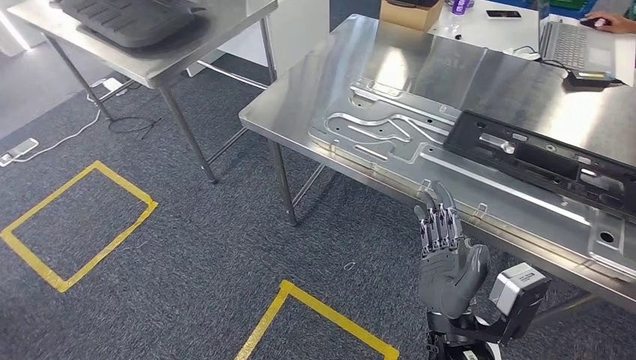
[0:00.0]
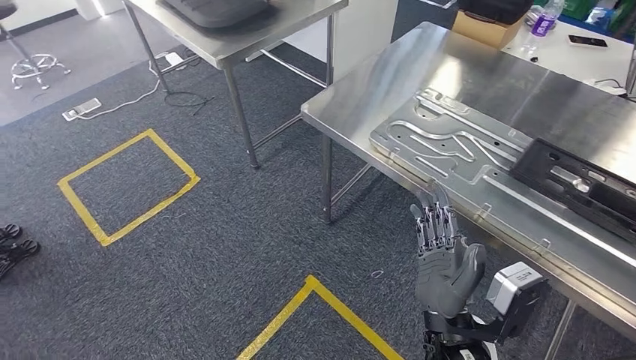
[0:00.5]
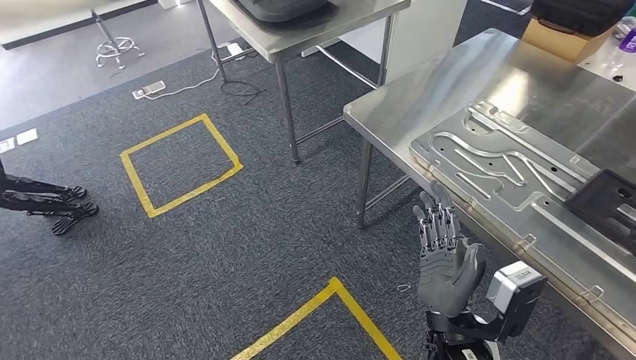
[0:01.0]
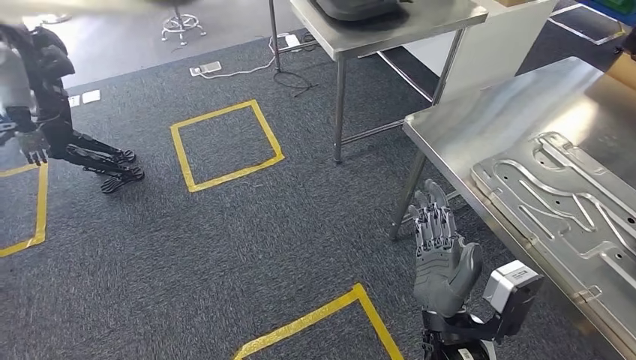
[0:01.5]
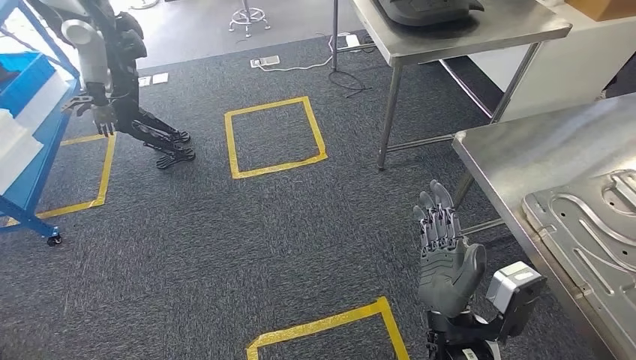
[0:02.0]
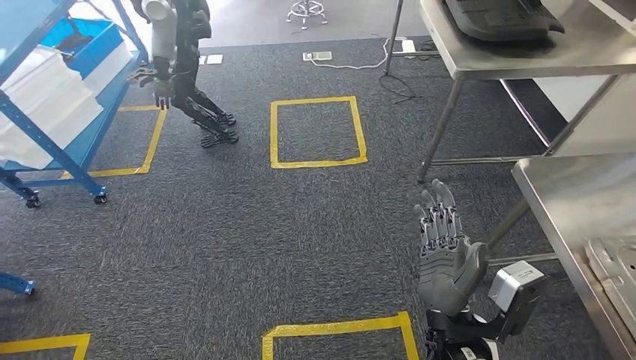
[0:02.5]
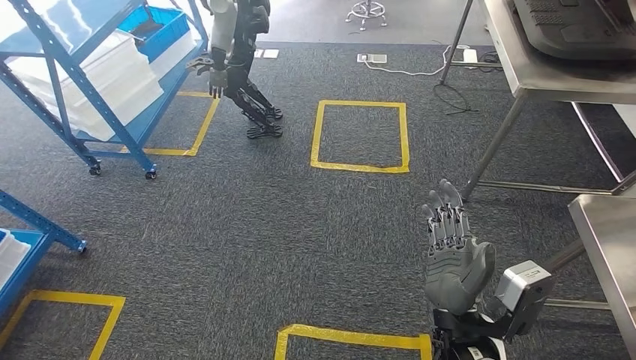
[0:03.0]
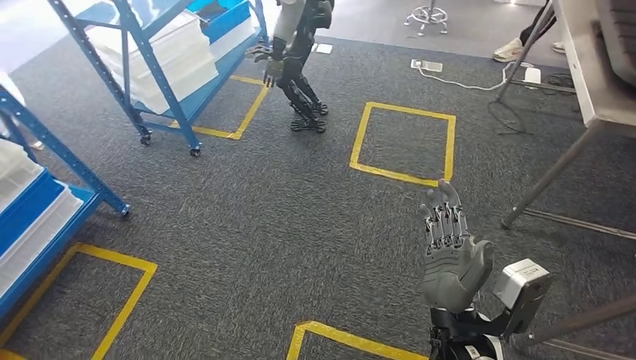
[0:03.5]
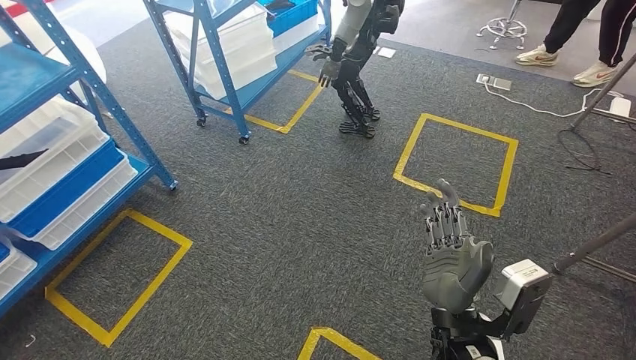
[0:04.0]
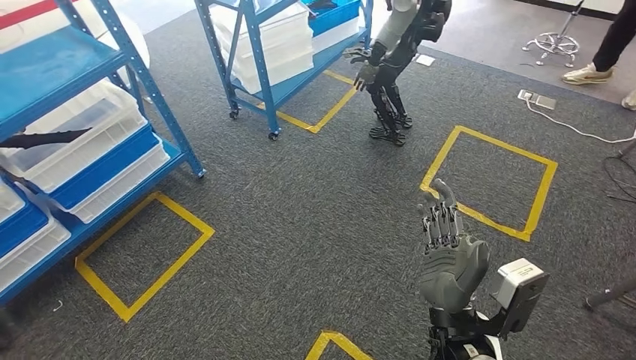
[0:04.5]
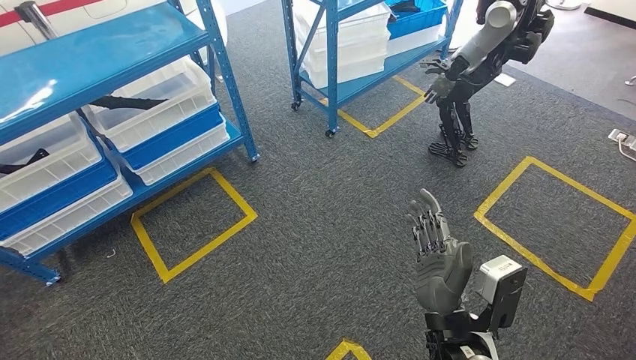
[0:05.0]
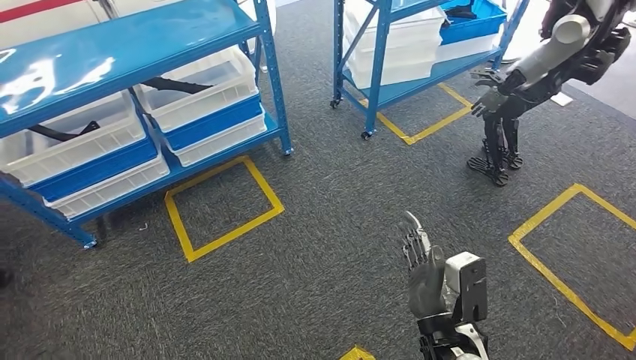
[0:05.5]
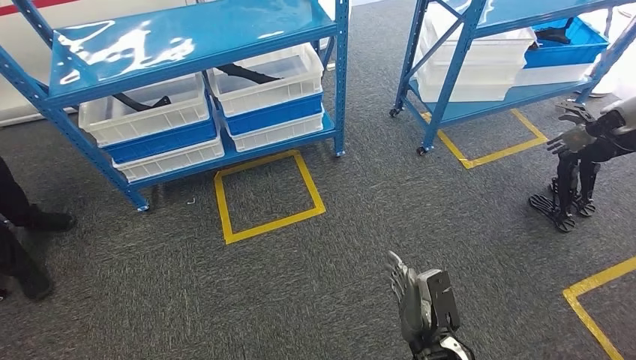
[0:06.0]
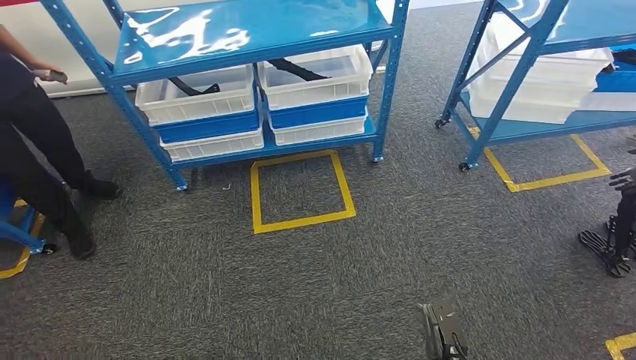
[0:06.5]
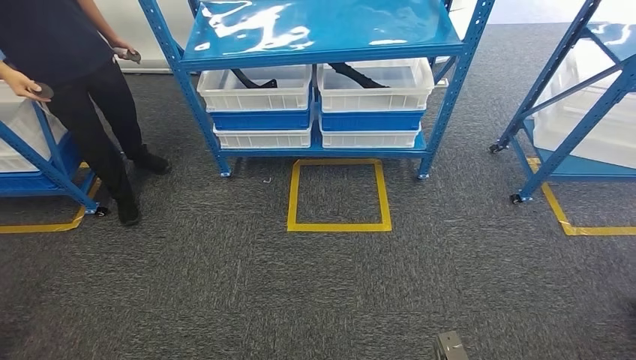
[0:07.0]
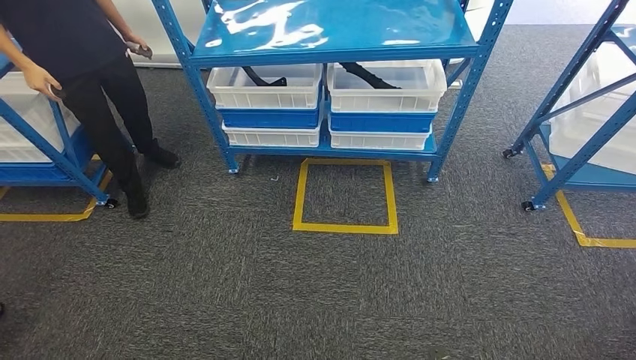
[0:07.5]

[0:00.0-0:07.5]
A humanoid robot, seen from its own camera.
Step, 0:00.0 to 0:07.5: Move to the initial position of the shelf.

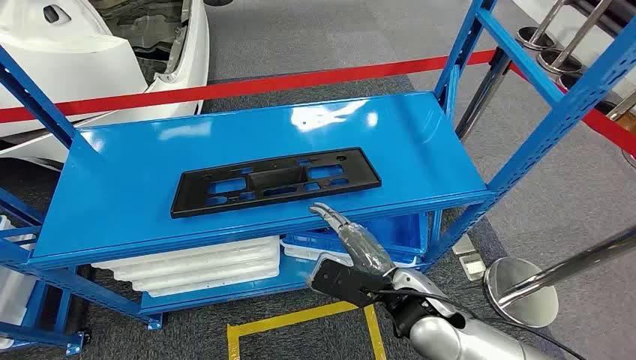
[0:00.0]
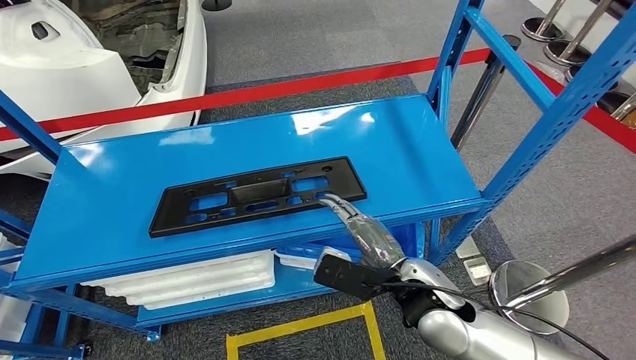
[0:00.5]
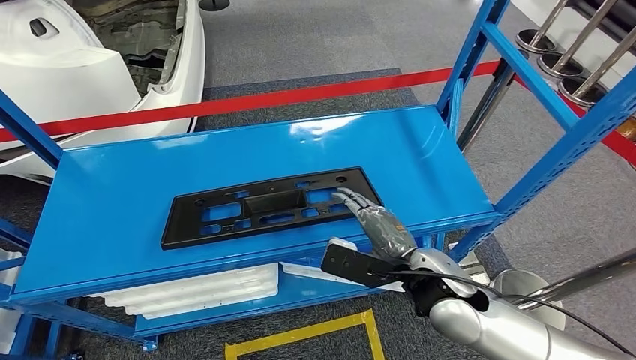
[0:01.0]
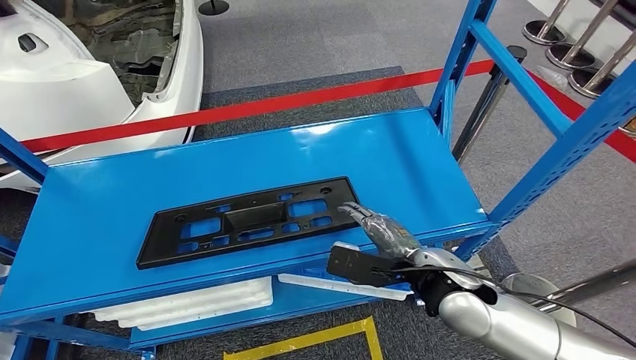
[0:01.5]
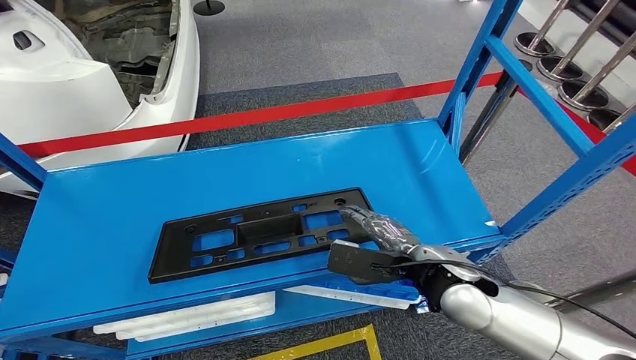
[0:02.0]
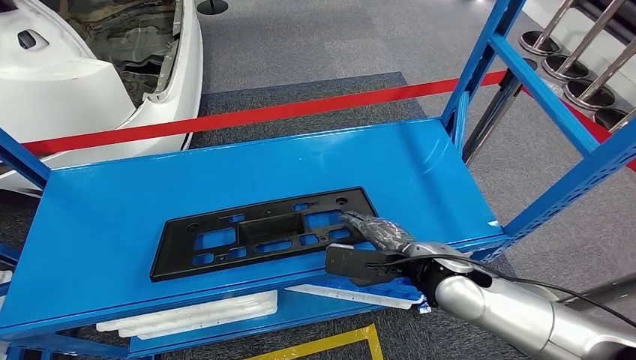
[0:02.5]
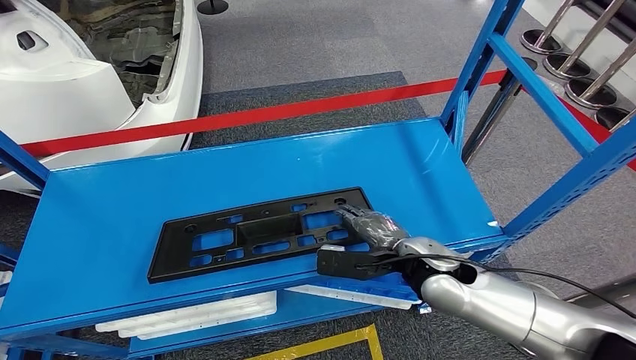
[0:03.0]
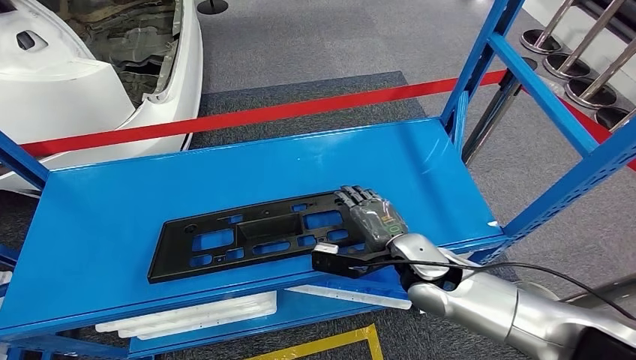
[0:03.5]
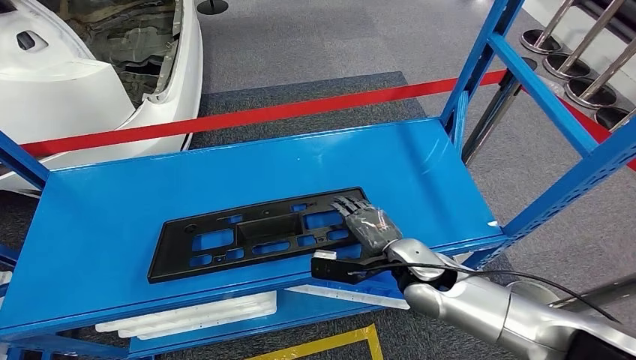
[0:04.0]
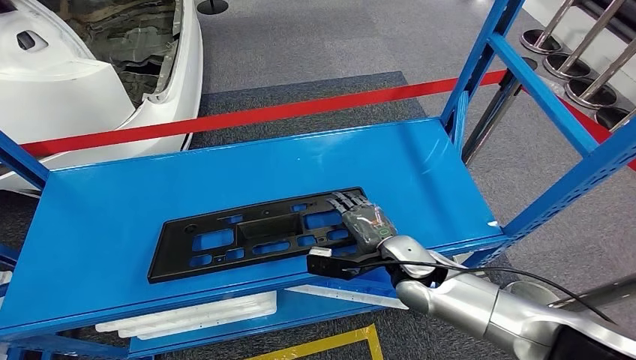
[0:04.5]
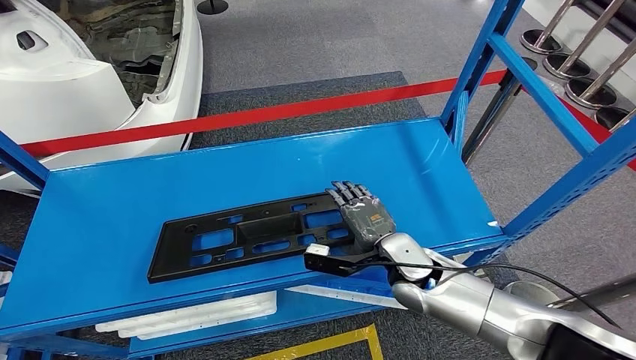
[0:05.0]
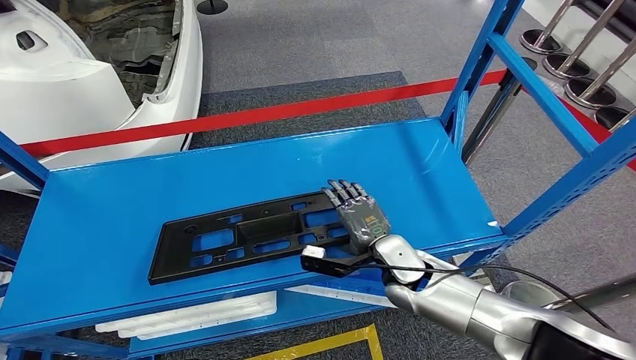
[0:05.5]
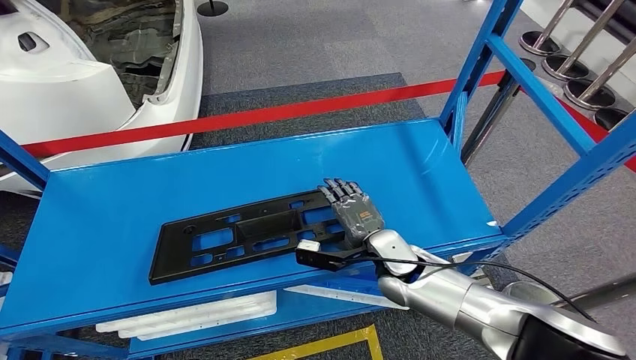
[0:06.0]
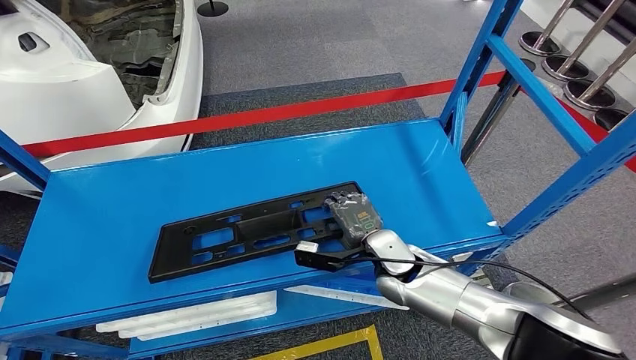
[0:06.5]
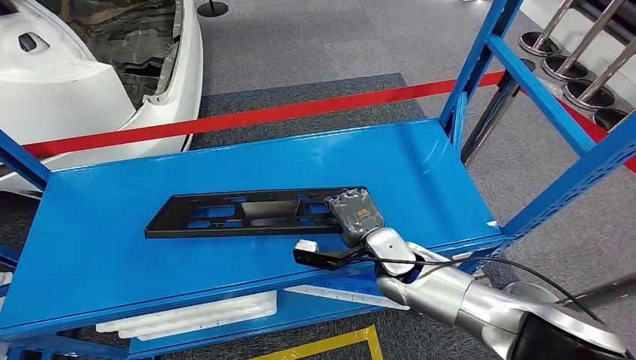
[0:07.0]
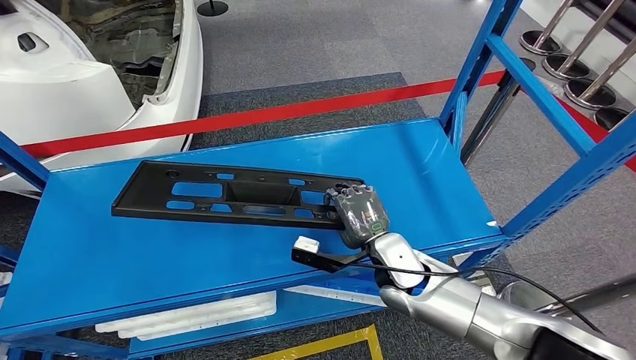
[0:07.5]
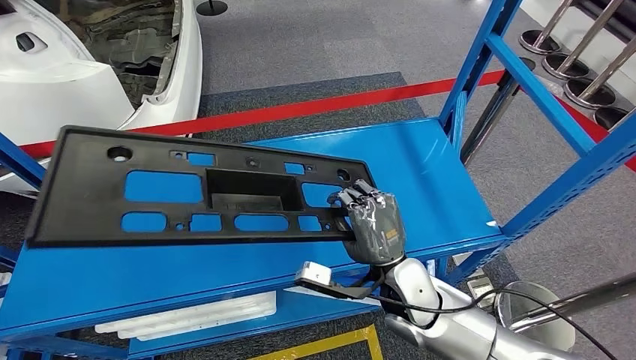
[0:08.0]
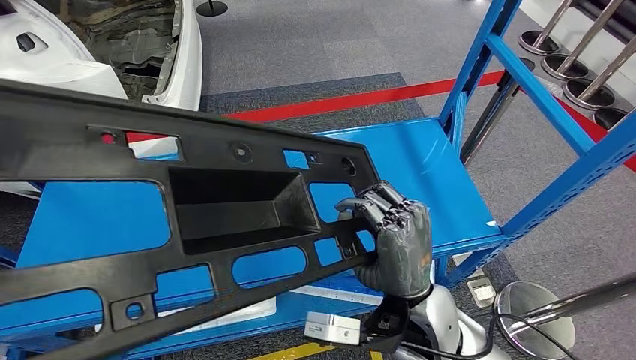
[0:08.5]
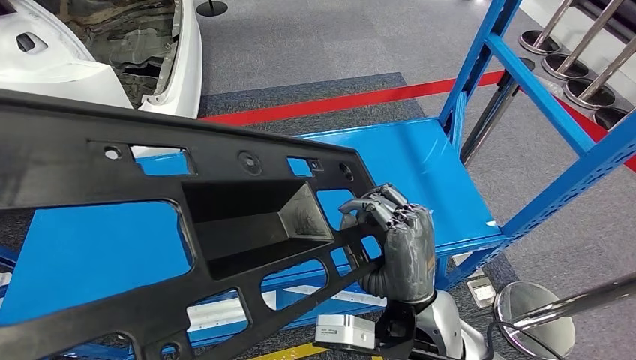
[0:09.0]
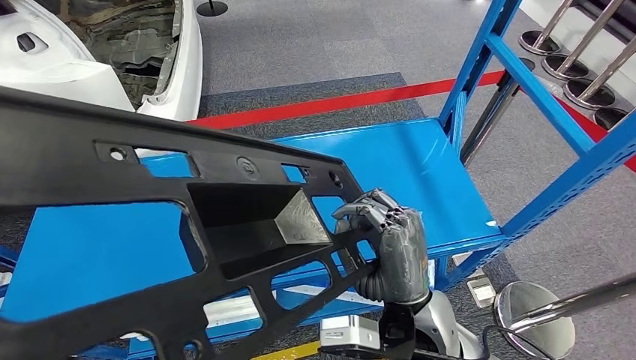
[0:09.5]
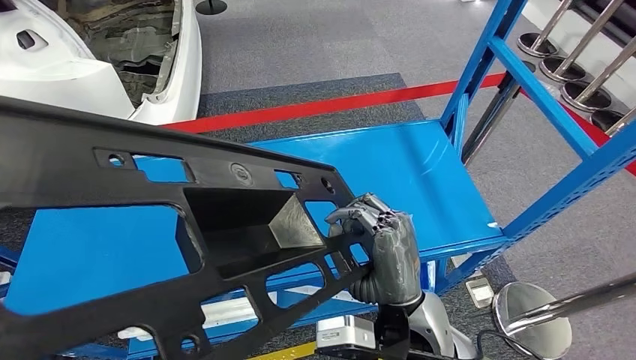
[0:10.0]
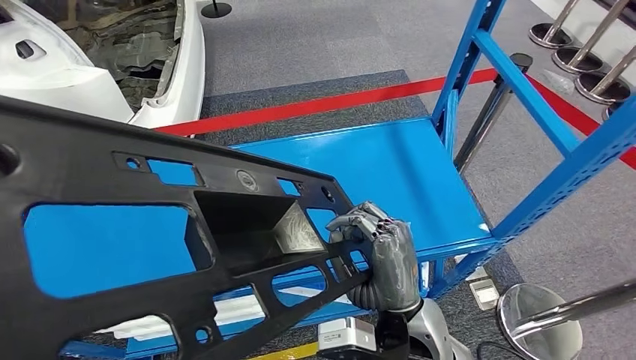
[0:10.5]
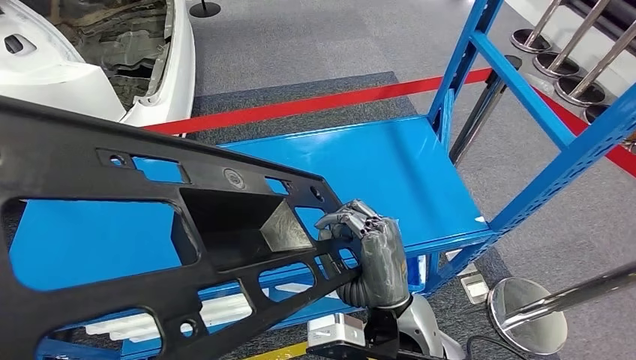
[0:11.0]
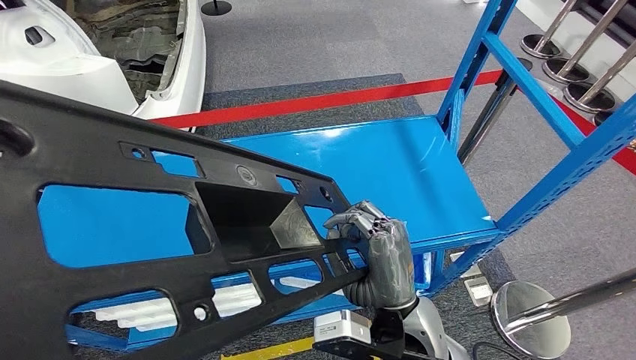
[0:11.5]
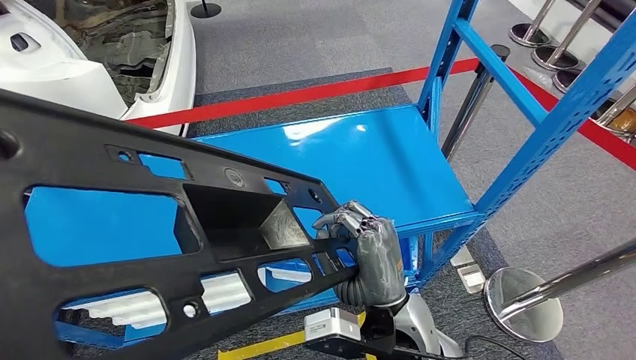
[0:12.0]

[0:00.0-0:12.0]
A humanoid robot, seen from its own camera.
0:02.0 to 0:04.0: The right hand is displaced downward by some 5 cm.
0:04.0 to 0:06.0: The right hand moves roughly 5 cm.

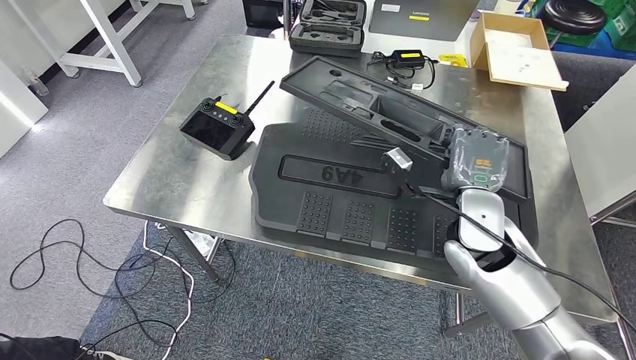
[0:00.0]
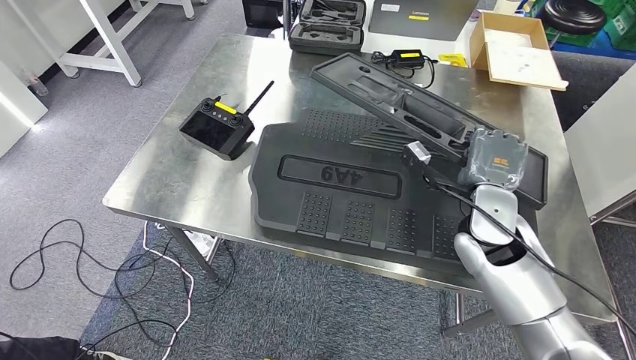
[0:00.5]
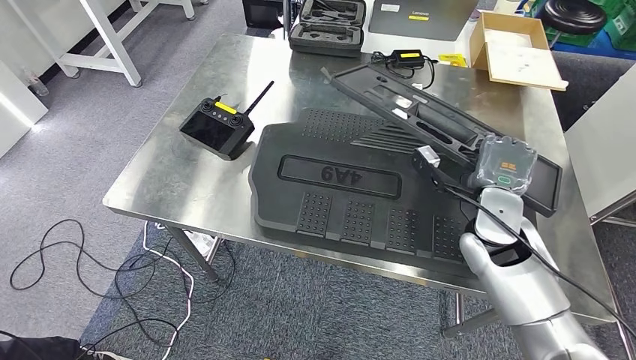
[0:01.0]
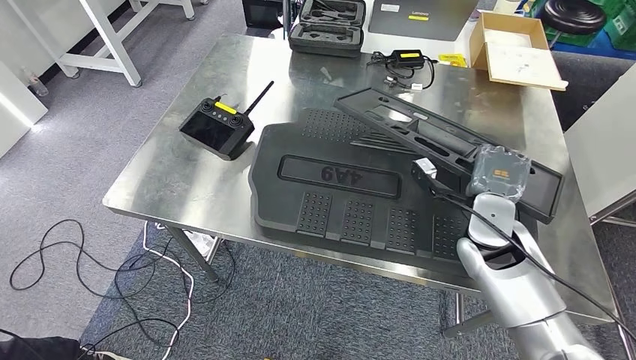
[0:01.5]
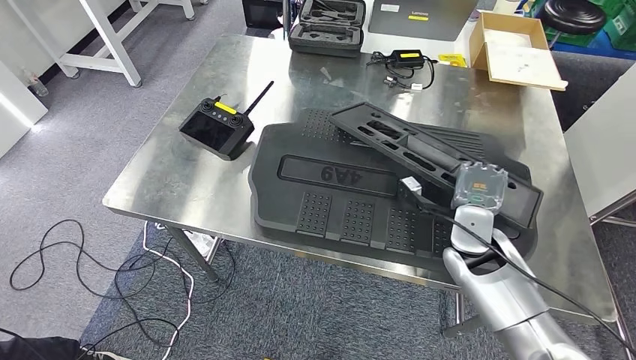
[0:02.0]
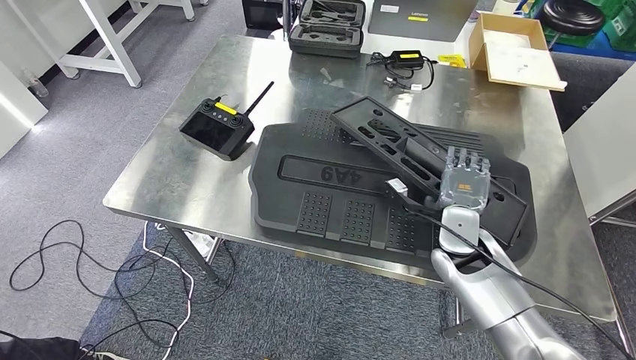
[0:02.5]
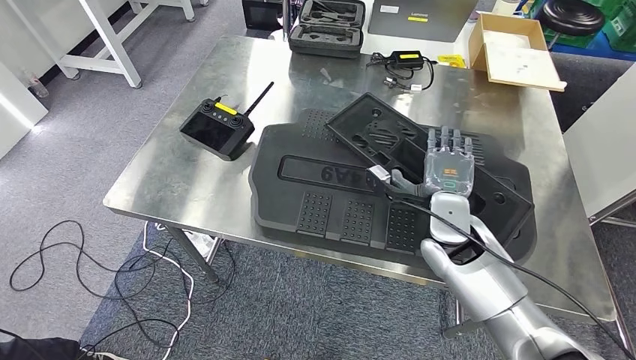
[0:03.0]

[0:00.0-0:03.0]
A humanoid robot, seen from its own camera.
0:00.0 to 0:01.5: The right hand moves roughly 5 cm.
0:01.5 to 0:03.0: The right hand is displaced to the left by approximately 5 cm.
